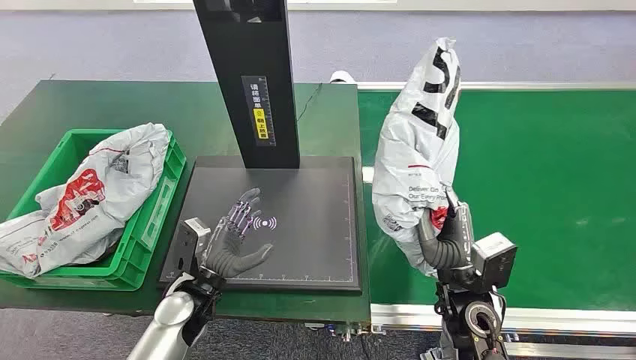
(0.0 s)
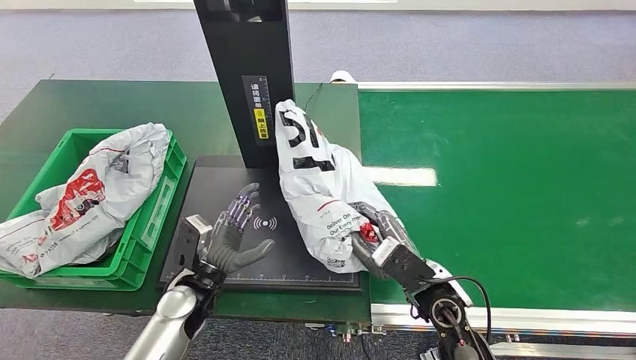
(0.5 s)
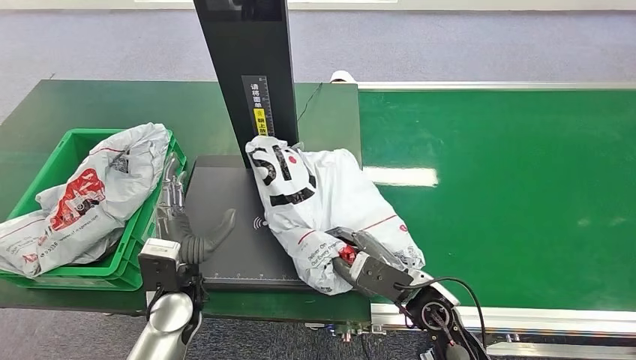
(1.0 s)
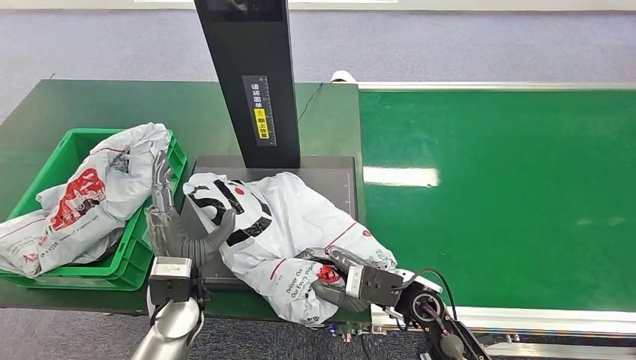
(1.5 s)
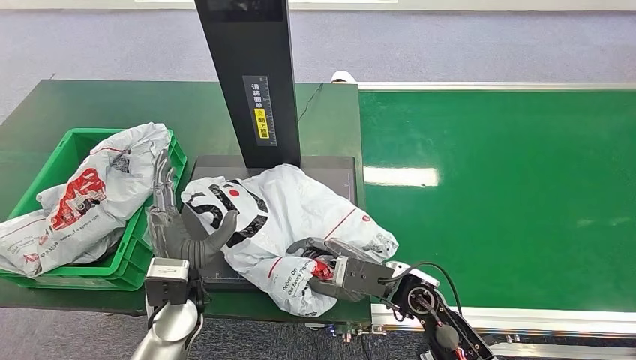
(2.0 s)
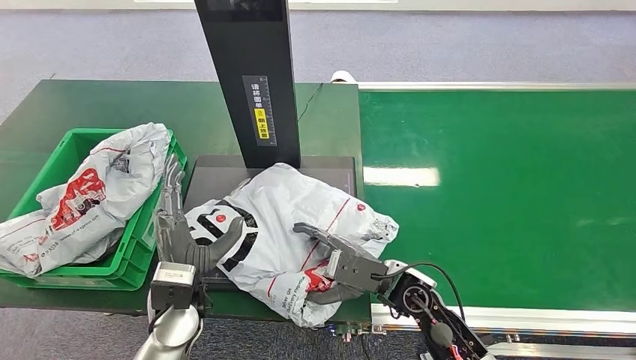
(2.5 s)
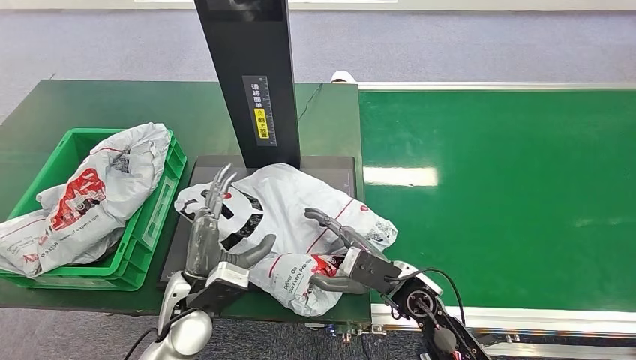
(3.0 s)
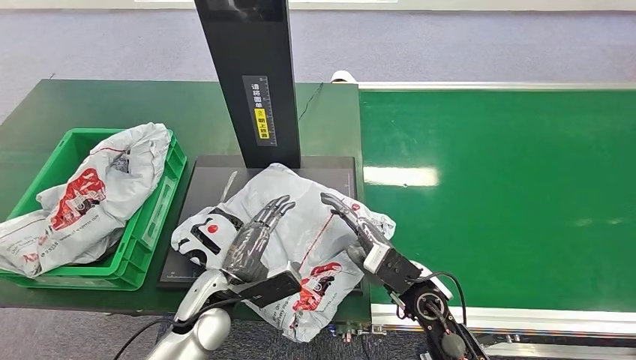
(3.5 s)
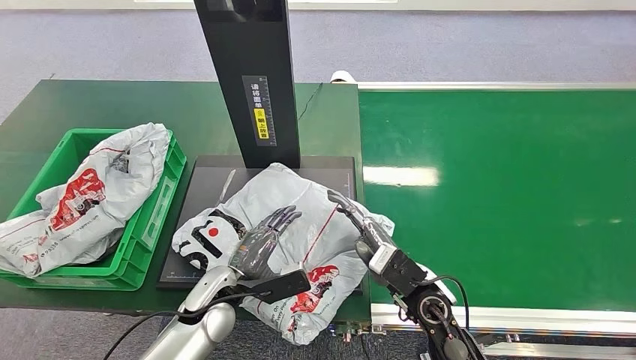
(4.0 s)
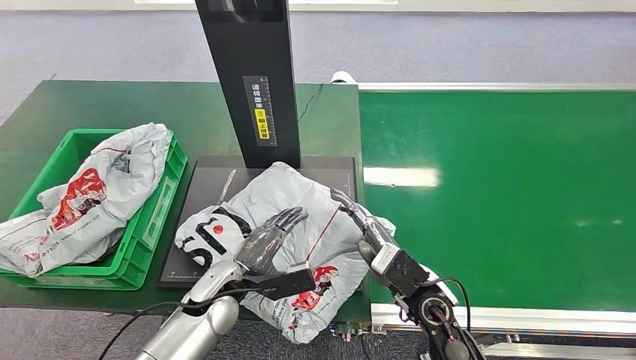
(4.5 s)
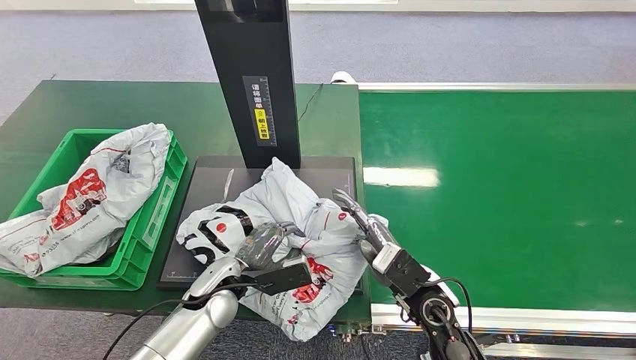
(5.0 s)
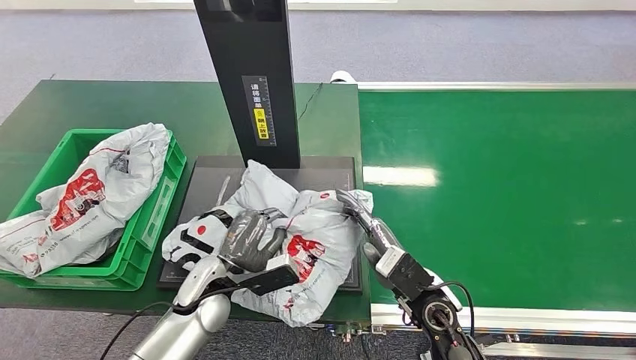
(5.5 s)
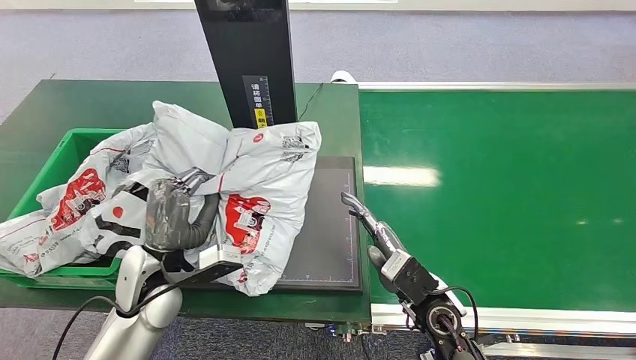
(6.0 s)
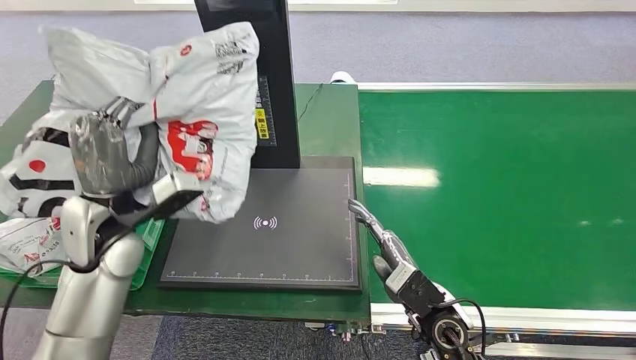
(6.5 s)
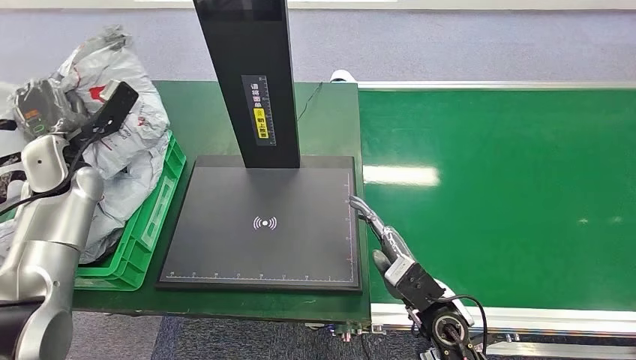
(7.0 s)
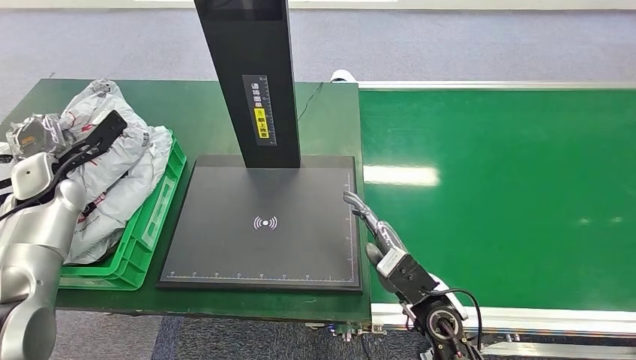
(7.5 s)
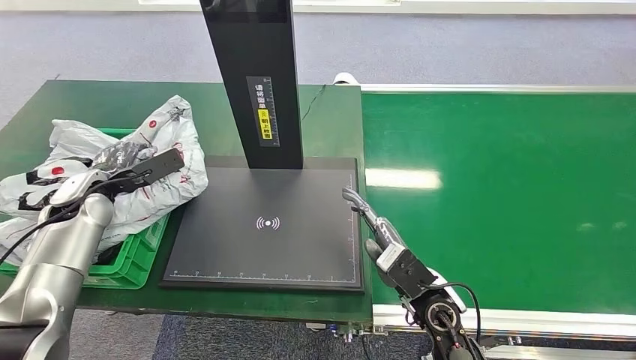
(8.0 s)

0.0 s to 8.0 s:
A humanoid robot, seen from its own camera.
2.0 to 4.0 s: The left hand goes some 5 cm downward.
